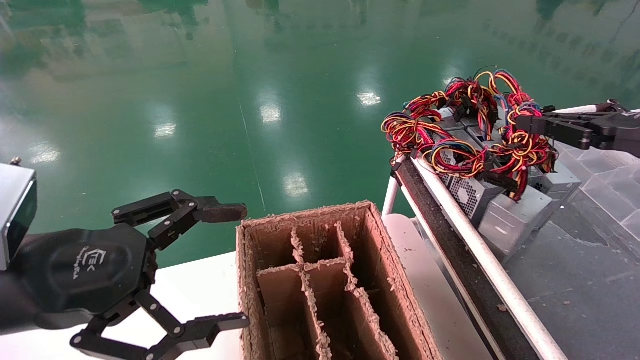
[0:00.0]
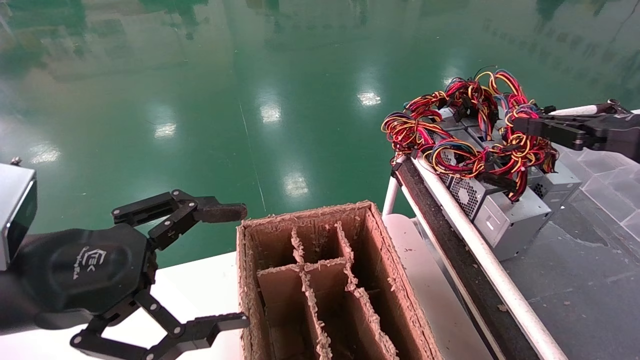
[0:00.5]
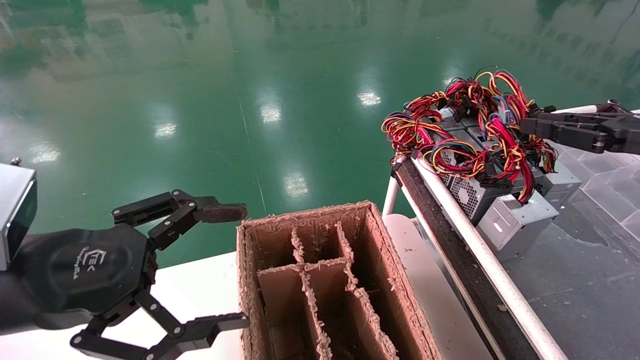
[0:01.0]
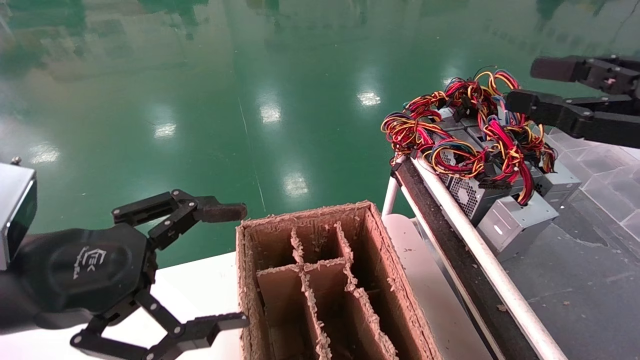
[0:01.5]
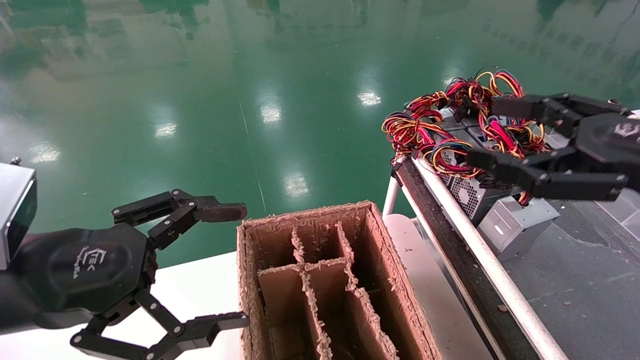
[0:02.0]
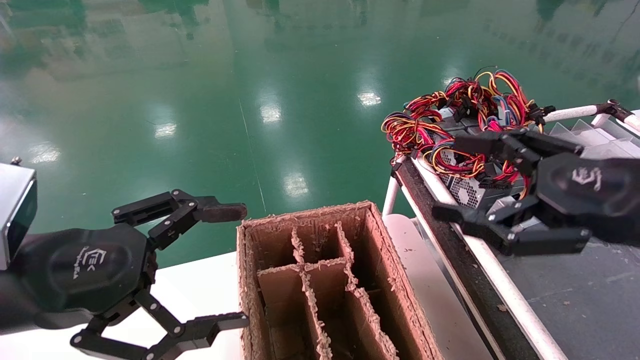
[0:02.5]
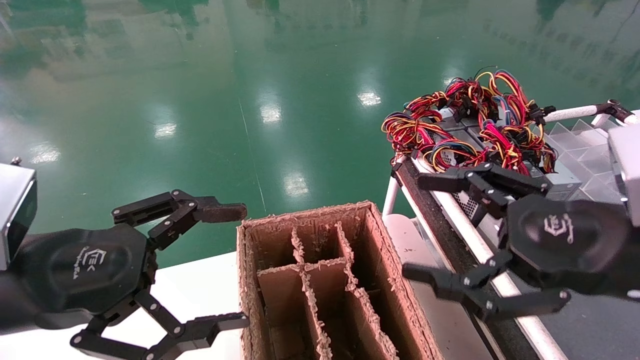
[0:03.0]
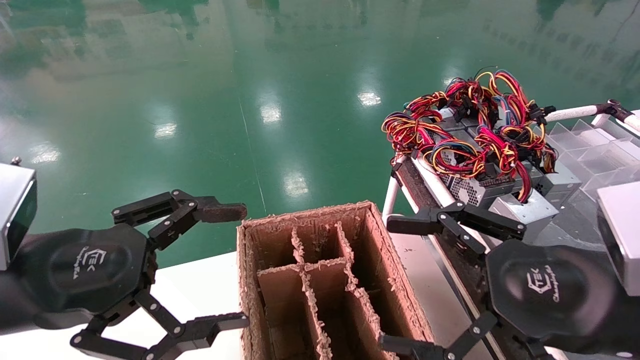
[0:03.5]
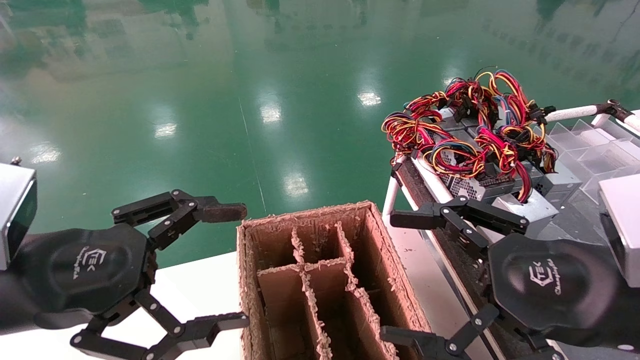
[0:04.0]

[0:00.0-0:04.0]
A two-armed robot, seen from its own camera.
0:00.0 to 0:02.0: The right gripper shifts some 10 cm backward and to the left, and opens up.
0:02.0 to 0:04.0: The right gripper travels to the left and downward by approximately 10 cm.
